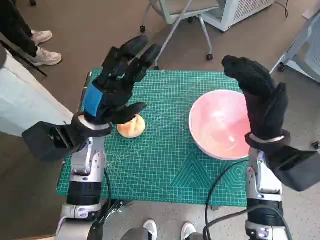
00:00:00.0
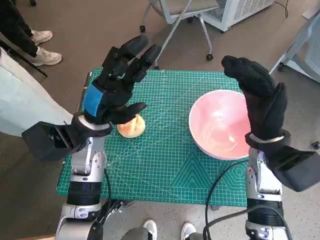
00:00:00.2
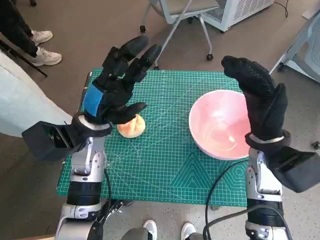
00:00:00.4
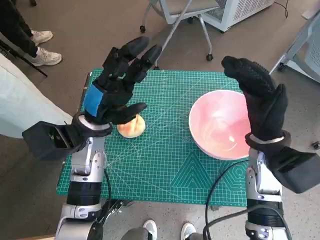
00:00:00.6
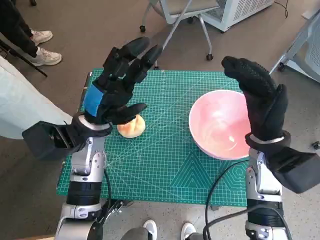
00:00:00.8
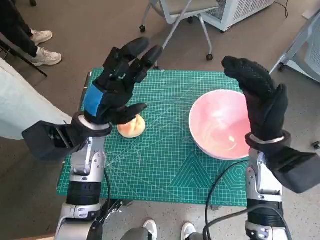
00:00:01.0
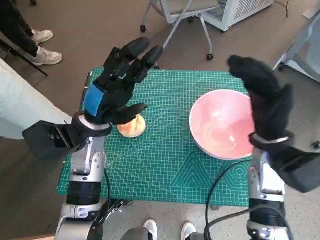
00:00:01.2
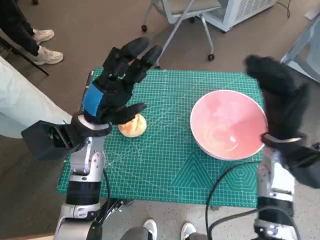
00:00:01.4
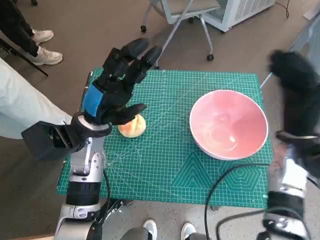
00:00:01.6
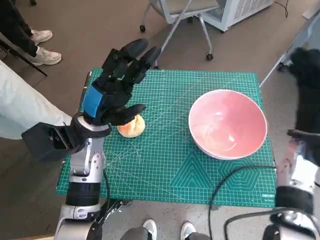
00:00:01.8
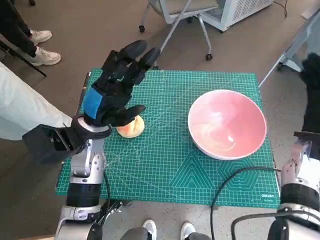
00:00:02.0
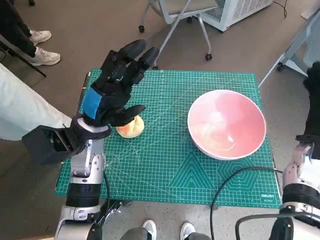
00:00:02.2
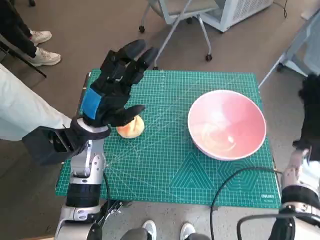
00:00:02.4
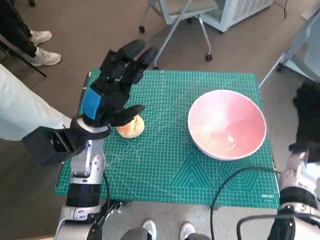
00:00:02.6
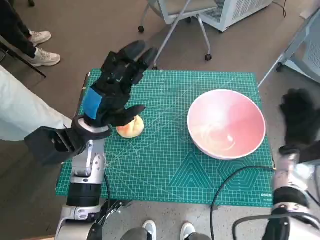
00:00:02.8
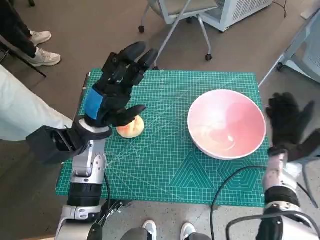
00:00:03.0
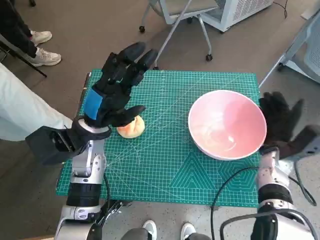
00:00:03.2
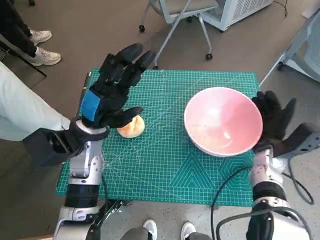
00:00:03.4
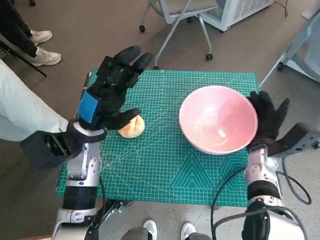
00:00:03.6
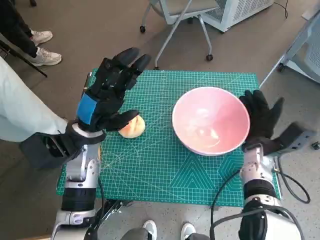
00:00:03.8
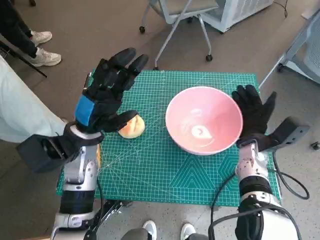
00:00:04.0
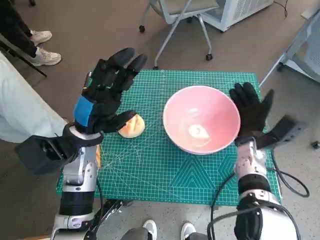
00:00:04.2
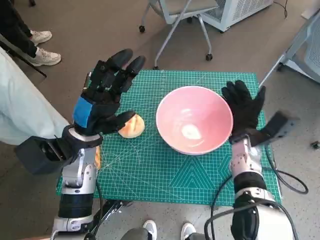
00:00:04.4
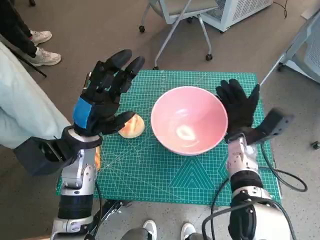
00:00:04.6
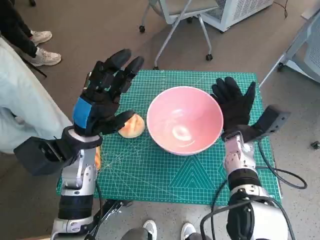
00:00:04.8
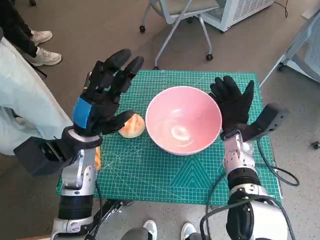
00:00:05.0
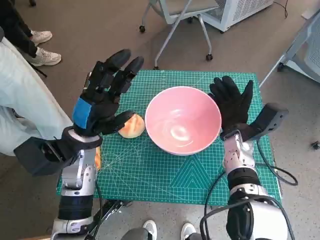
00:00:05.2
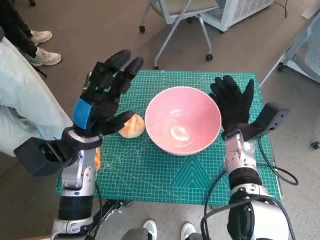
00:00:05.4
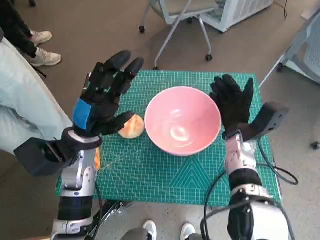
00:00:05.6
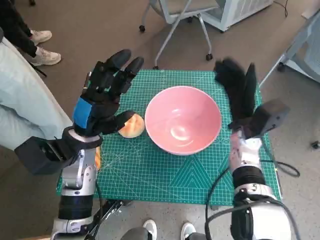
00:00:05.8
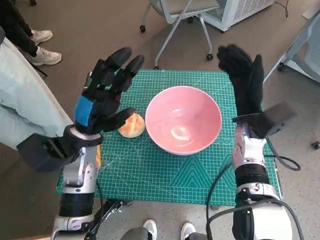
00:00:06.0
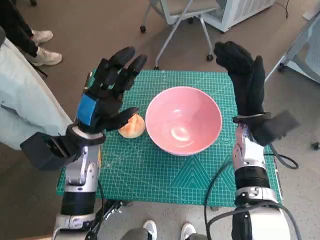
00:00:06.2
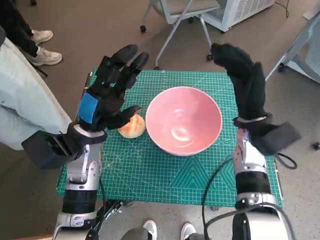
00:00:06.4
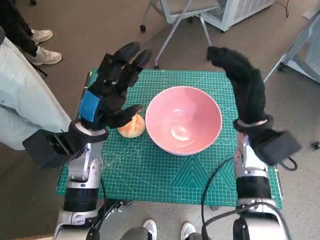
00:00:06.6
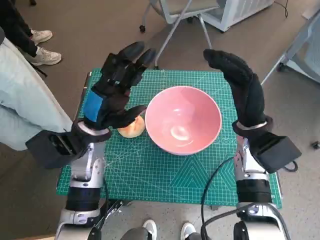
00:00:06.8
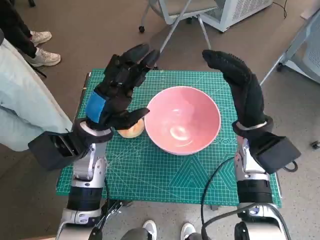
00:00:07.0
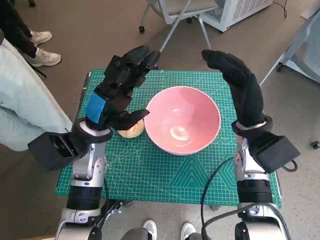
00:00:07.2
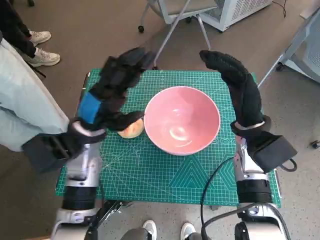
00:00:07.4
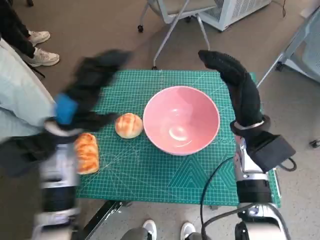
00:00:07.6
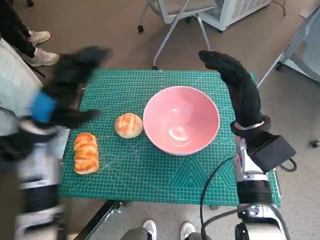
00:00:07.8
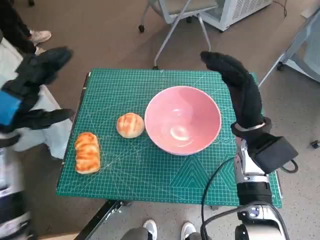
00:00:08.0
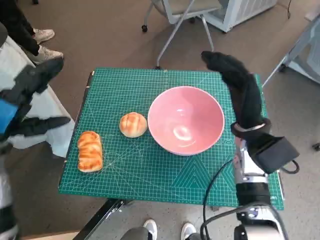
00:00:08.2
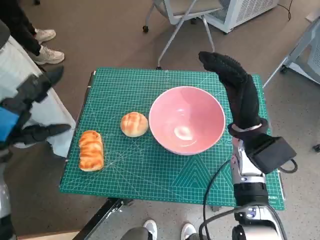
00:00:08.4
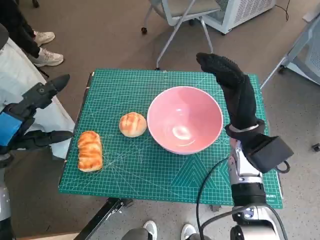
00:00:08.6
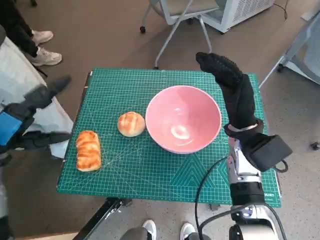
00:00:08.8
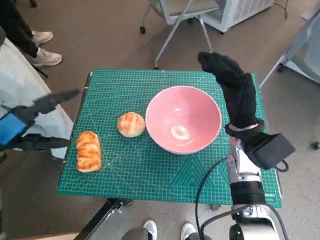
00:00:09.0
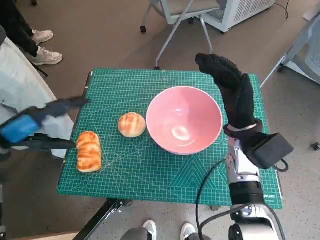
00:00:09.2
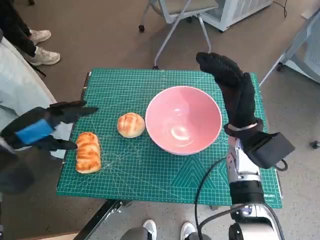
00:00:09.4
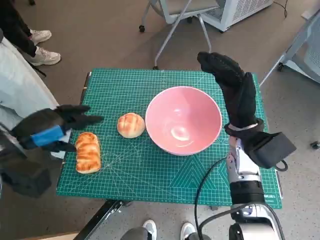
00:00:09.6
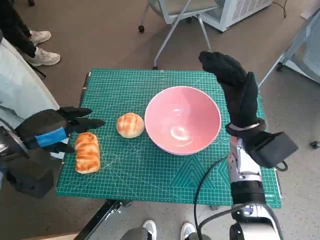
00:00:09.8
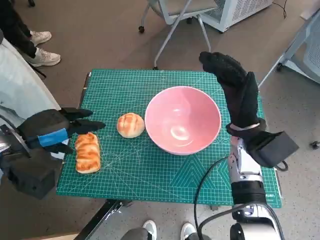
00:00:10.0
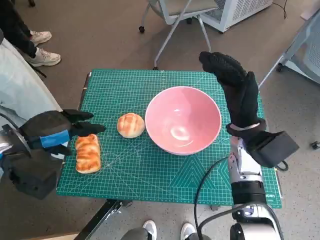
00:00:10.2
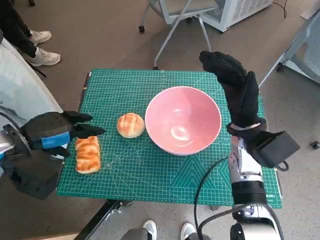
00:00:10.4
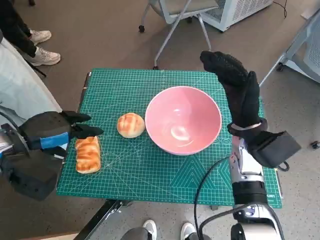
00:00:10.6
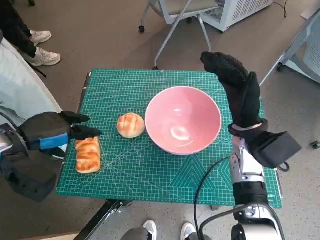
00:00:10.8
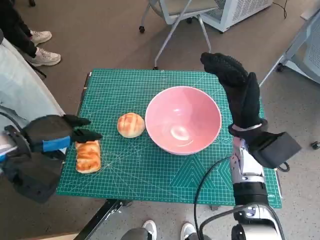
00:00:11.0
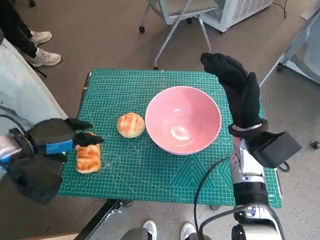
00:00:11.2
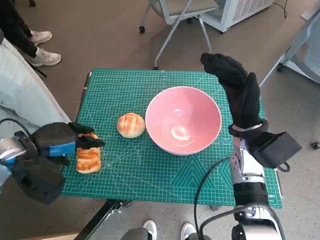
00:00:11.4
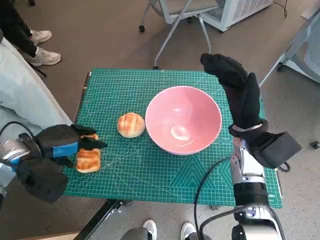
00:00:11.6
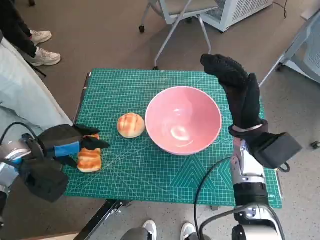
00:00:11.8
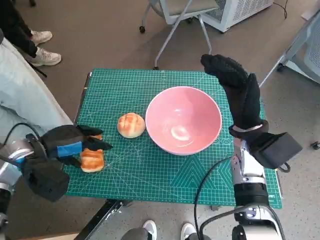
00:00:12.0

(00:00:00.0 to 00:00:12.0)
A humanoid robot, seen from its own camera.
Task of the whole recording: Push the bowl into the center of the table and put the bread into the bowl.
Step, 00:00:00.0 - 00:00:06.0: Move the pink bowl to the center of table with right hand.
00:00:01.6 - 00:00:03.0: The right hand goes some 10 cm downward.
00:00:03.0 - 00:00:04.4: The right hand travels to the left by about 10 cm.
00:00:04.4 - 00:00:06.0: The right hand travels upward by roughly 5 cm.
00:00:07.6 - 00:00:09.0: The left hand is displaced to the left and backward by roughly 15 cm.
00:00:10.4 - 00:00:12.0: The hands stay close to where they were, moving slightly.

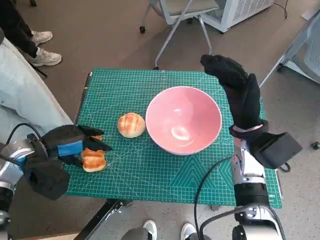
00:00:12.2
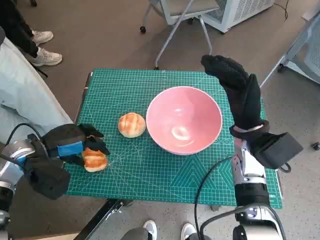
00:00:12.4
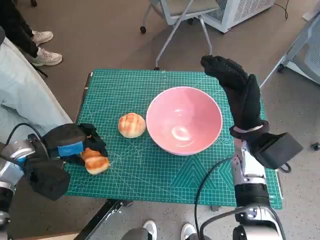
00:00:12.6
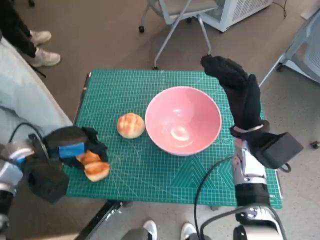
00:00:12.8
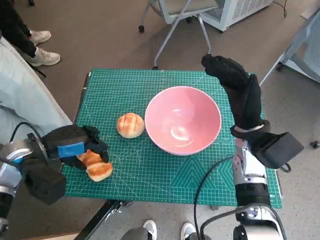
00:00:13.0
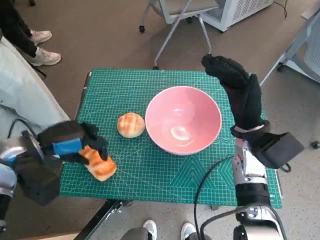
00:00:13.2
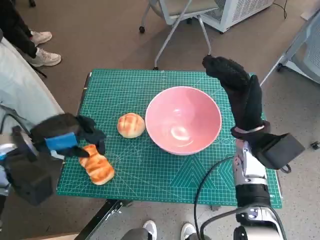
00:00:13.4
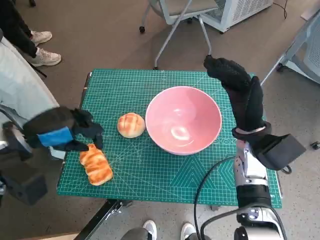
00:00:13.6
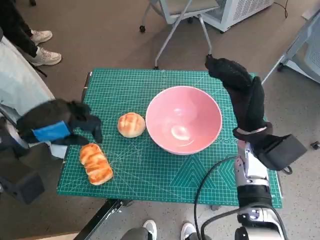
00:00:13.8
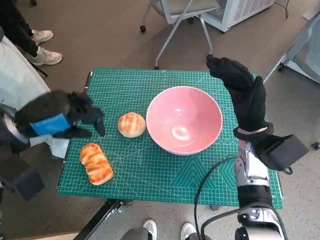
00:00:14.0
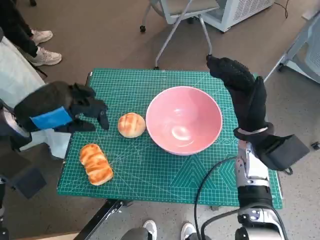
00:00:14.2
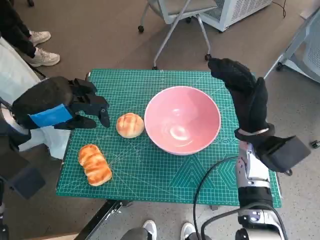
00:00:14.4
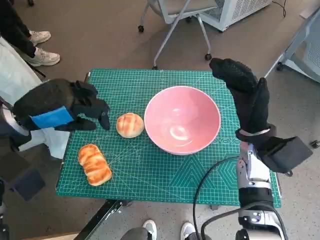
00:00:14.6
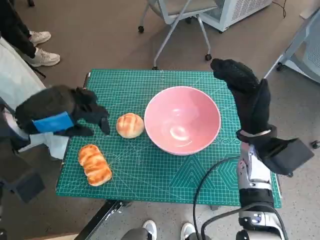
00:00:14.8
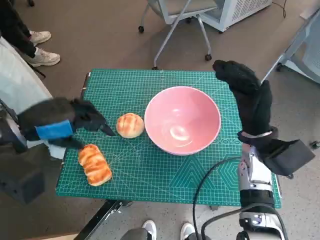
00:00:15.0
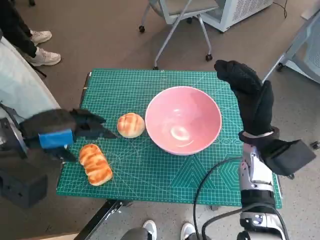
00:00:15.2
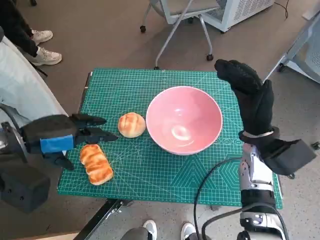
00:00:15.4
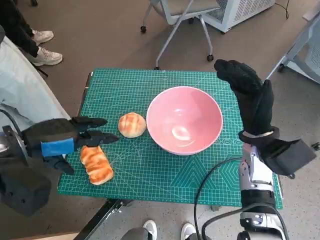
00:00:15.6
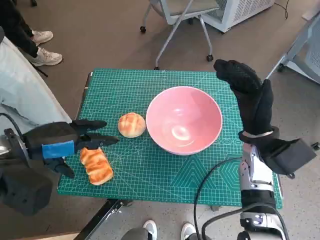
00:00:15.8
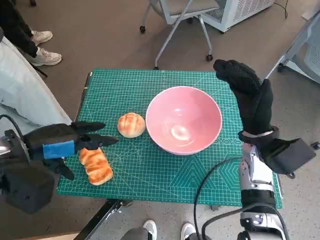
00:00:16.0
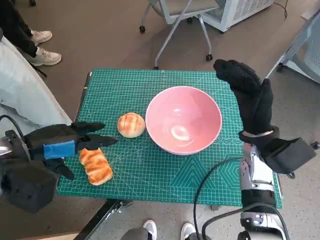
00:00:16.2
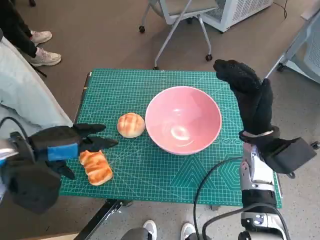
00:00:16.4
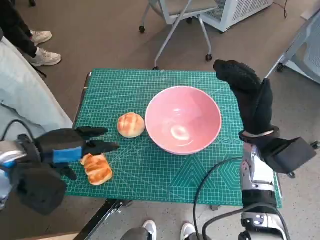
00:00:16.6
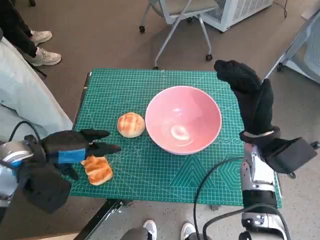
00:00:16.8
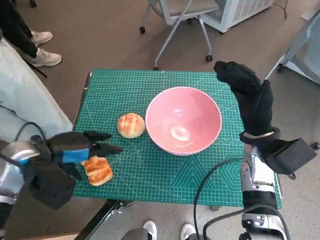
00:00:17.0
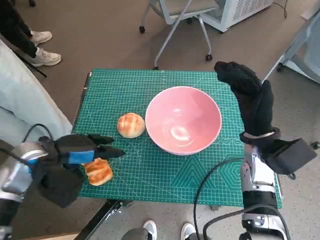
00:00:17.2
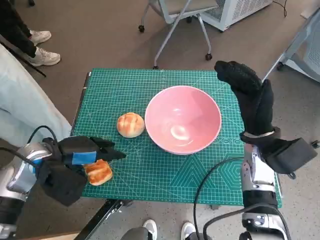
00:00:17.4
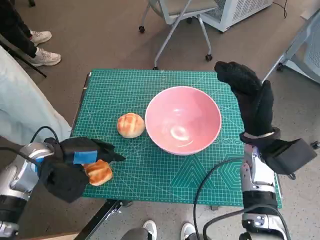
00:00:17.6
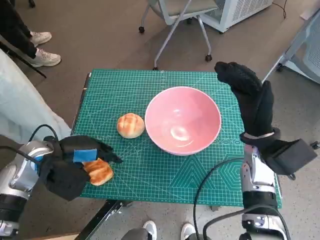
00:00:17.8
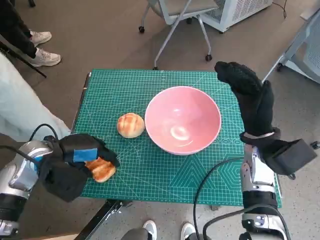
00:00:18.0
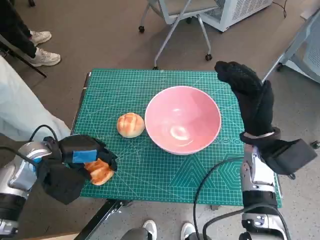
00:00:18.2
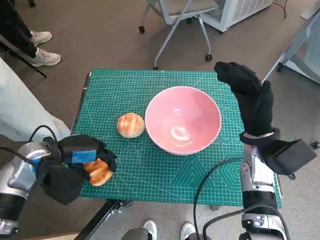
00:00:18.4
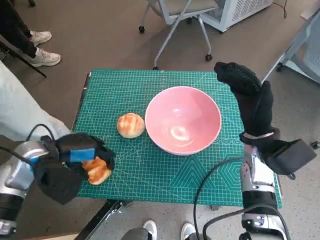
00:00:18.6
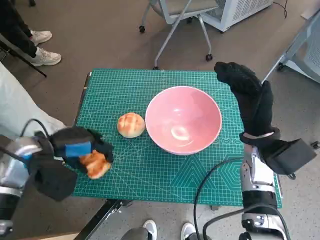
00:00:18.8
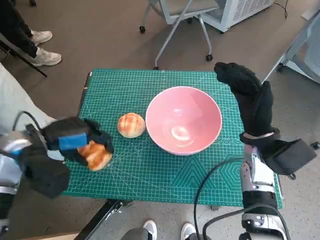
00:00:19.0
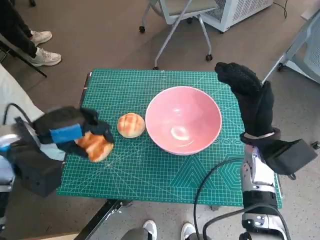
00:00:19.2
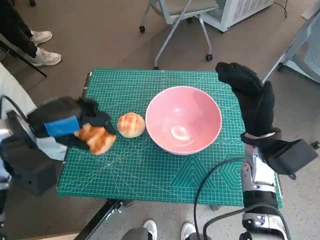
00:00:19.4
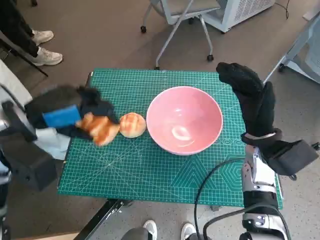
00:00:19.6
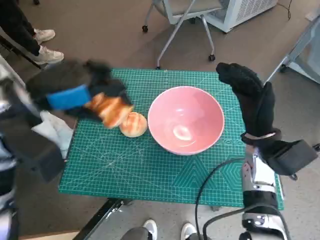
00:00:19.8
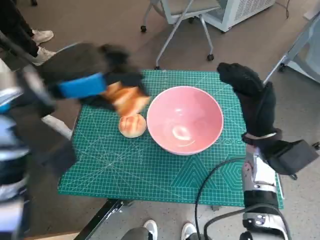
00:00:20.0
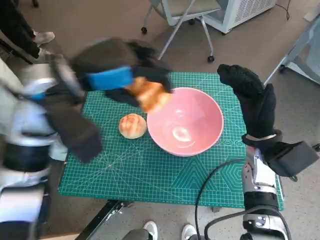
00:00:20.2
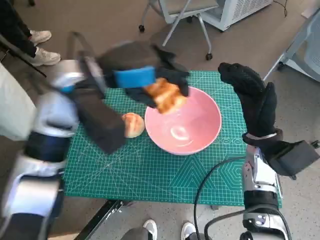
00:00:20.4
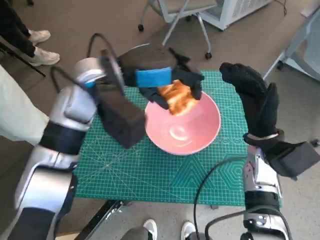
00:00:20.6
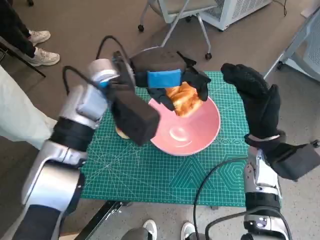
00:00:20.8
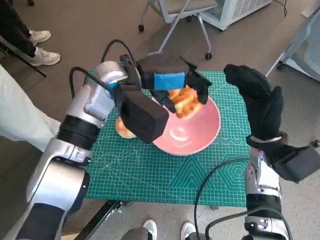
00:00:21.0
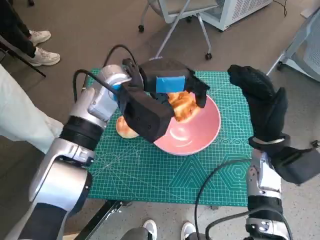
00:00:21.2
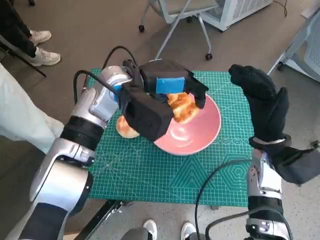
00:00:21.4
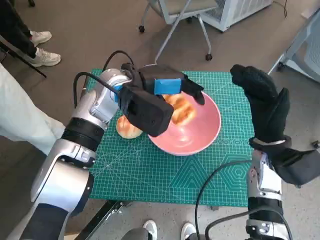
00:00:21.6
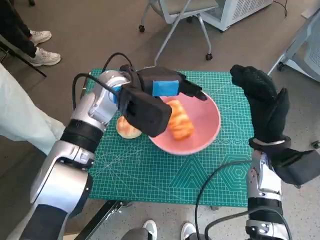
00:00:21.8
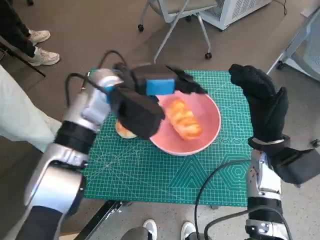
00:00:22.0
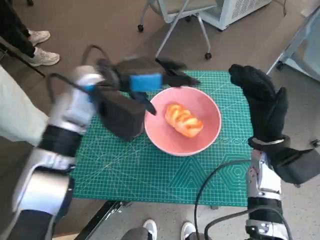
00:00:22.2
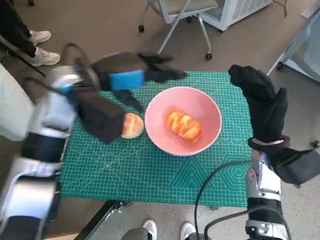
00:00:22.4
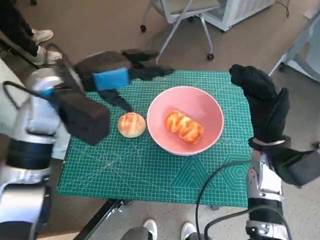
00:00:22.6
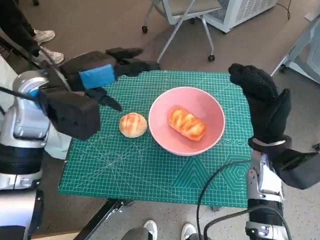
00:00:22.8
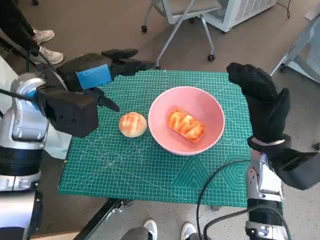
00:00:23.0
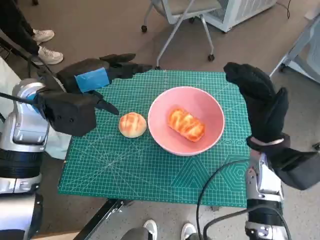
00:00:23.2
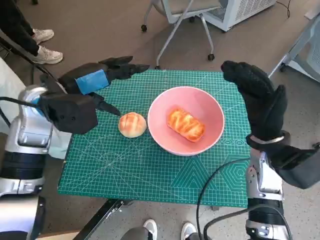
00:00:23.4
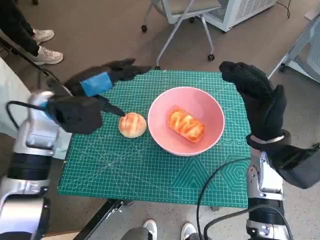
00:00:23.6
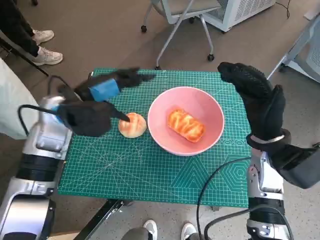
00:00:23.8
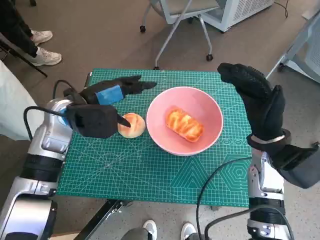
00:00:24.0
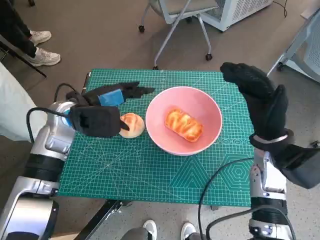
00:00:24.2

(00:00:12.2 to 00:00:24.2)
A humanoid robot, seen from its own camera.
Task of the whole recording: Push the bowl into the center of the table and put the bread into the bowl.
Step, 00:00:12.2 - 00:00:18.6: Grasp the long bread with left hand.
Step, 00:00:18.8 - 00:00:21.8: Place the long bread in pink bowl with left hand.
00:00:12.2 - 00:00:13.8: The left hand moves upward, approximately 5 cm.
00:00:13.8 - 00:00:15.2: The hands stay close to where they were, moving slightly.
00:00:15.2 - 00:00:16.6: There are only small adjustments of the hands.
00:00:16.6 - 00:00:18.2: The left hand goes some 5 cm downward.
00:00:18.2 - 00:00:19.8: The left hand goes roughly 15 cm upward.
00:00:19.8 - 00:00:21.2: The left hand heads to the right and forward, covering roughly 15 cm.
00:00:21.2 - 00:00:22.6: The left hand shifts approximately 10 cm to the left.
00:00:22.6 - 00:00:24.2: The left hand moves downward, about 10 cm.
